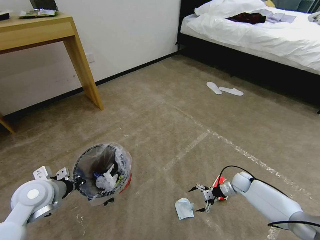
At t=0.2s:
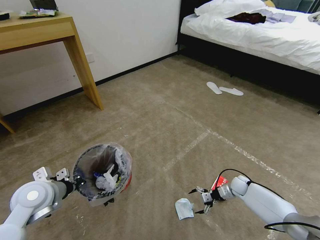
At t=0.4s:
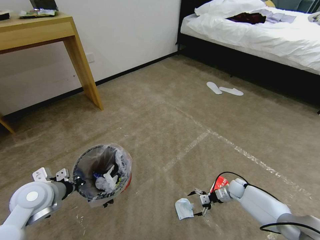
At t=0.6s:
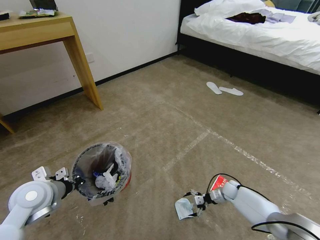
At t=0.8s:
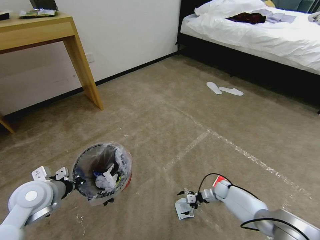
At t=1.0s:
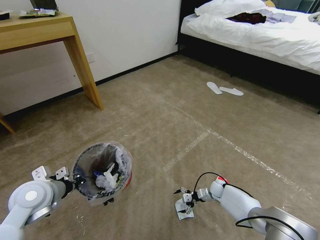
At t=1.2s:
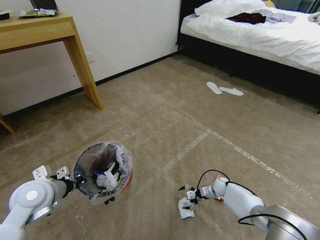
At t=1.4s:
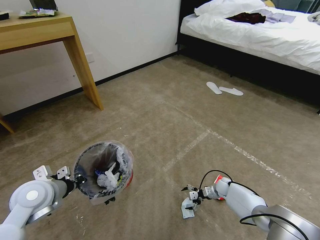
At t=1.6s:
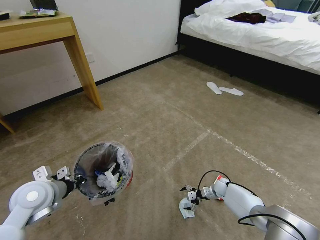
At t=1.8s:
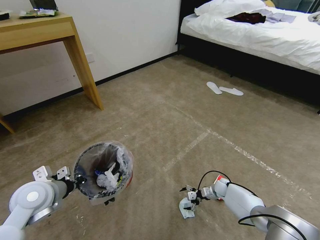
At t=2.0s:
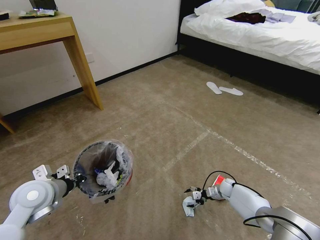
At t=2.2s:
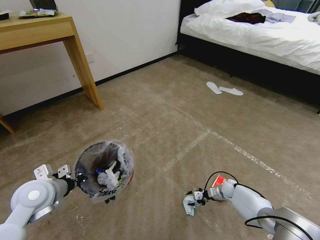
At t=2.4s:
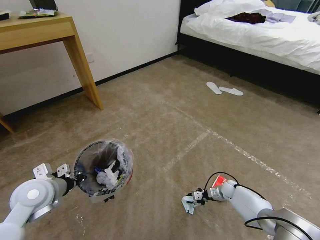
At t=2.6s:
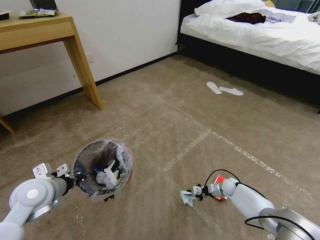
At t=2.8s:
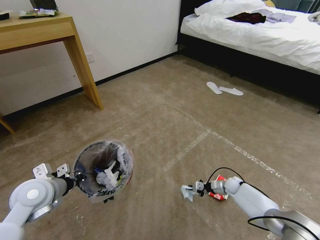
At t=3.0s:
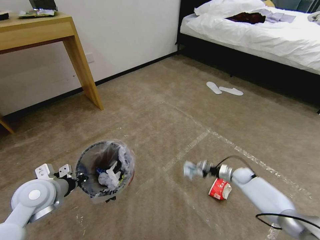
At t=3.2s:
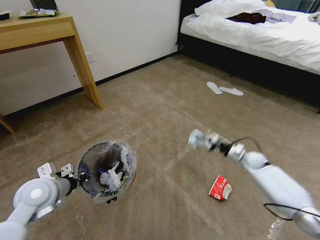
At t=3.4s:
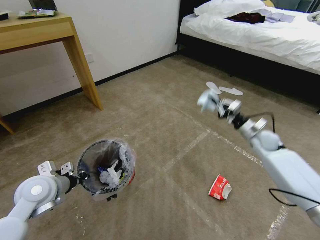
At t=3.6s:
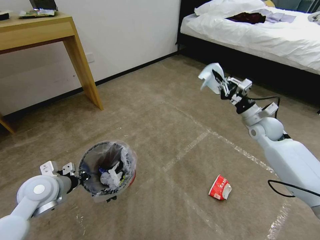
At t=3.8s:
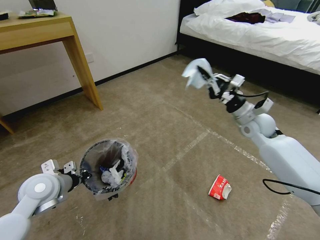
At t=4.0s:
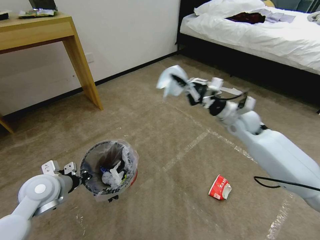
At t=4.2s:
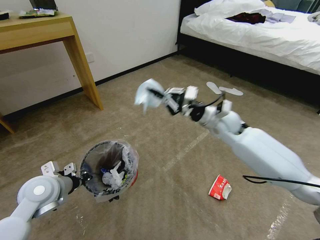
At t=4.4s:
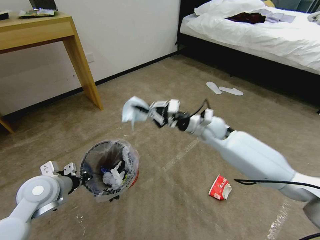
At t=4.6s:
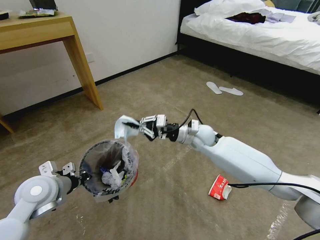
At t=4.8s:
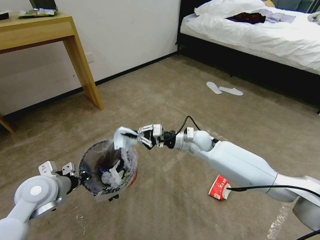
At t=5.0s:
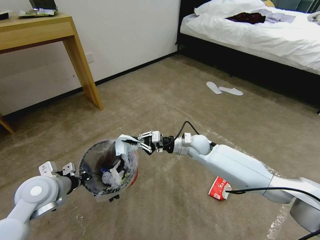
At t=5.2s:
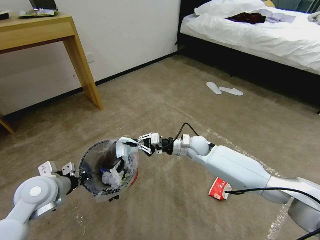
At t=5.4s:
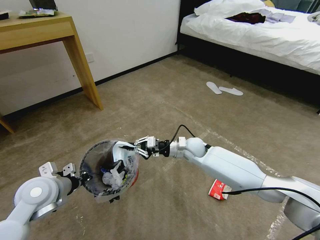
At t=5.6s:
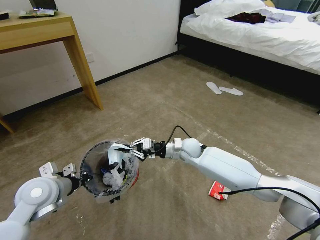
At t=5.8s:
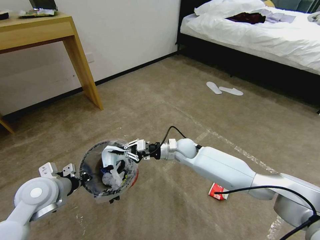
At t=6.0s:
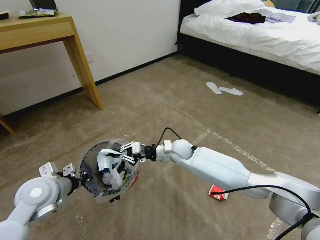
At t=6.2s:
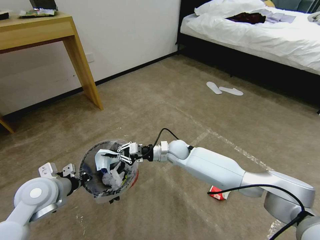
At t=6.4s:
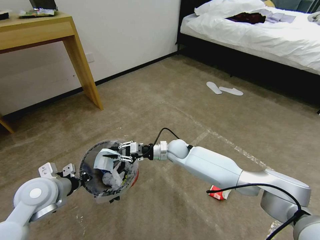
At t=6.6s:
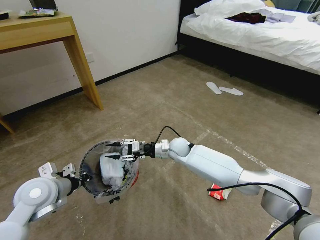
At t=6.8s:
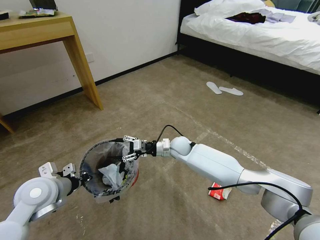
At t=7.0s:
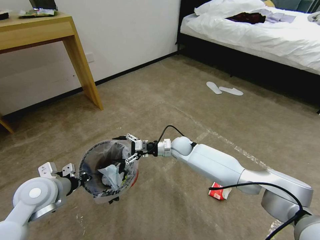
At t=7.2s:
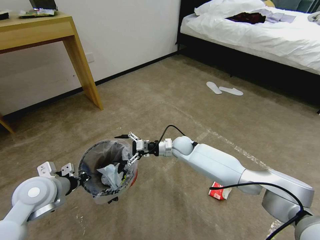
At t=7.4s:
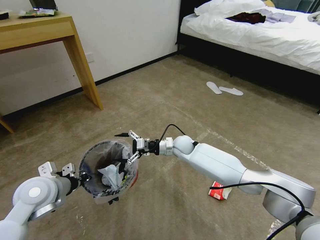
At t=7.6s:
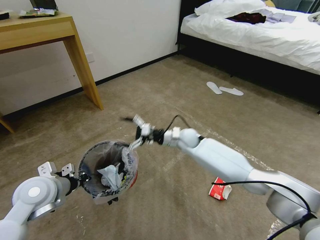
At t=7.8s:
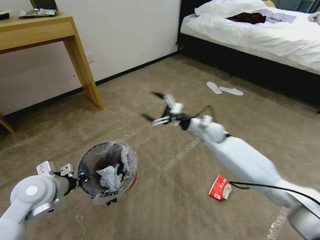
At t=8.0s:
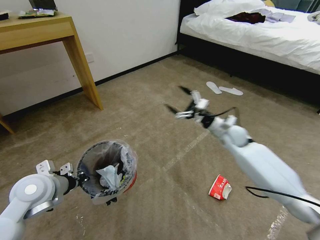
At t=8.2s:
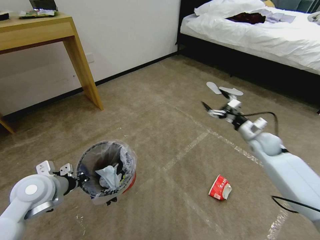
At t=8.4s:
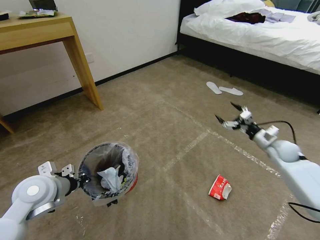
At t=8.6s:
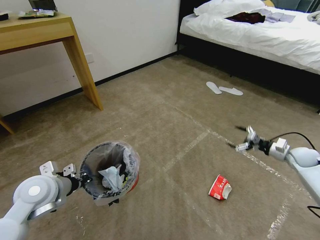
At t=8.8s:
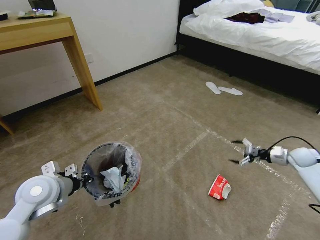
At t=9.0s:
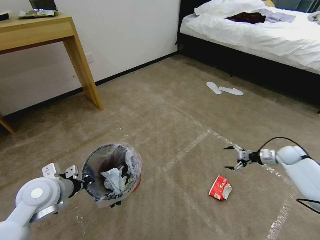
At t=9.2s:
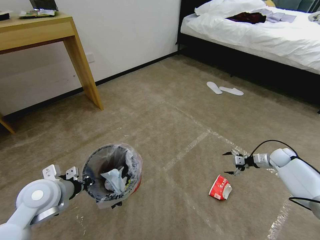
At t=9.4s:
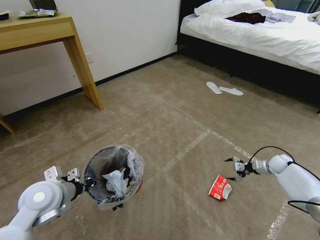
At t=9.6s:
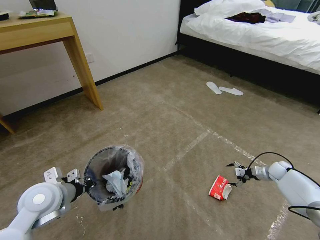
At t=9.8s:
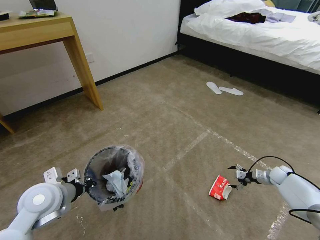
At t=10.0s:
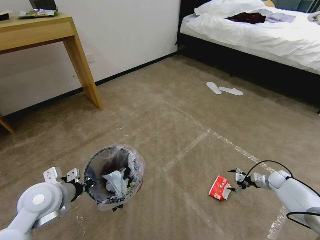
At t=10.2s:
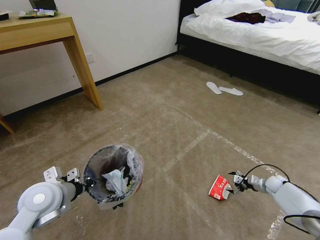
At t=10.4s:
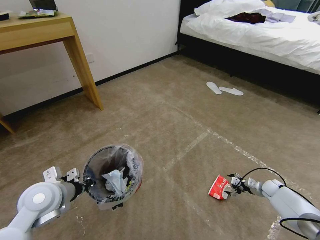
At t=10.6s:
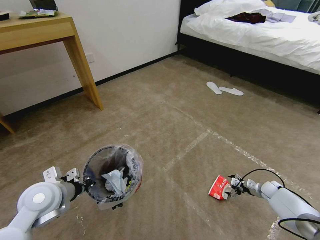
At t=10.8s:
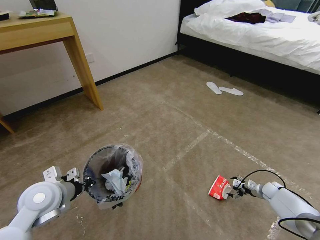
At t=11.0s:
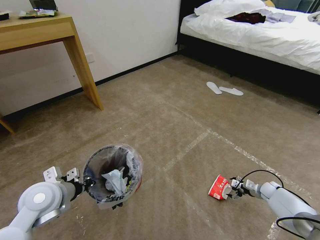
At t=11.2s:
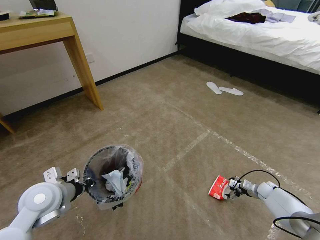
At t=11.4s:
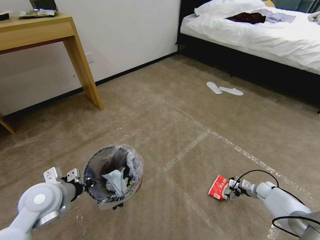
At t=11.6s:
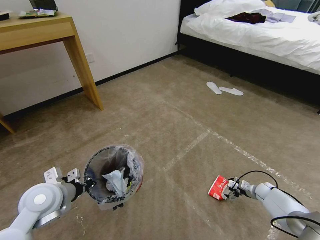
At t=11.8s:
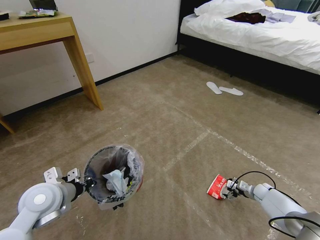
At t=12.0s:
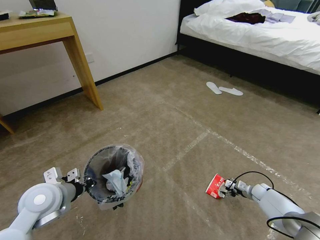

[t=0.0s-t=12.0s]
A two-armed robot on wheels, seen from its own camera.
Task of the whole recording: Pick up the trash bin and place the garbage on the floor into it.
t=0.0s to t=1.6s: The right gripper is displaced downward and to the left by approximately 10 cm.
t=1.6s to t=3.0s: The right gripper is displaced upward and to the right by approximately 10 cm, and closes.
t=3.0s to t=4.4s: The right gripper is displaced upward and to the left by some 35 cm.
t=4.4s to t=6.0s: The right gripper heads downward and to the left, covering some 15 cm.
t=6.0s to t=7.6s: The right gripper changes place by roughly 5 cm, and opens up.
t=7.6s to t=9.0s: The right gripper shifts roughly 40 cm to the right.
t=9.0s to t=10.4s: The right gripper goes roughly 20 cm downward and backward.
t=10.4s to t=12.0s: There are only small adjustments of the grippers.

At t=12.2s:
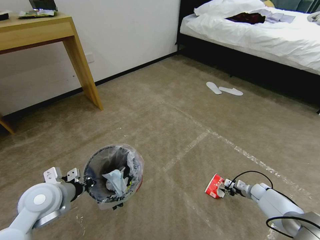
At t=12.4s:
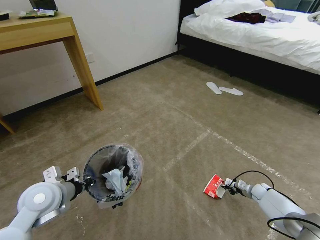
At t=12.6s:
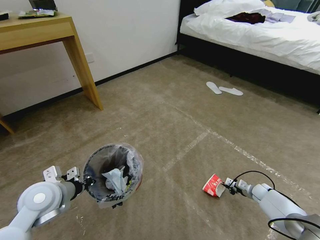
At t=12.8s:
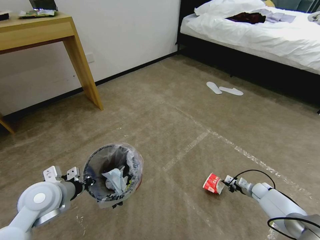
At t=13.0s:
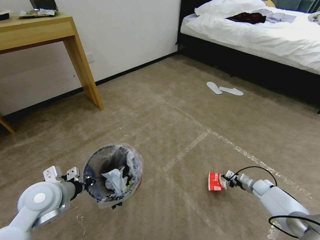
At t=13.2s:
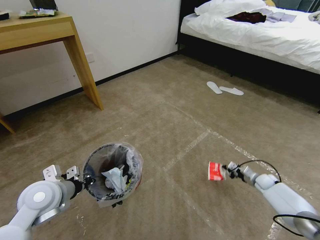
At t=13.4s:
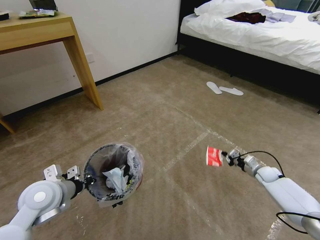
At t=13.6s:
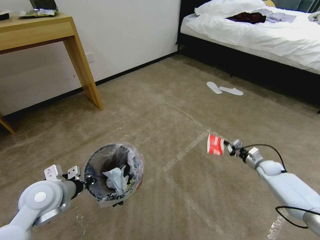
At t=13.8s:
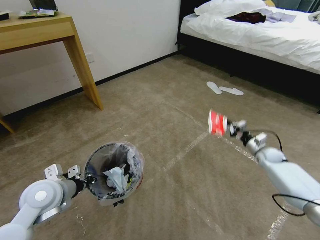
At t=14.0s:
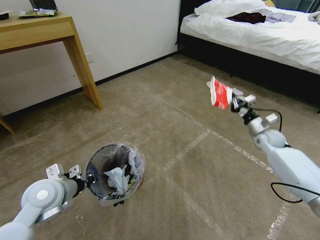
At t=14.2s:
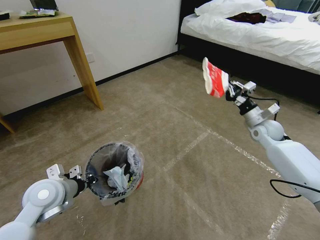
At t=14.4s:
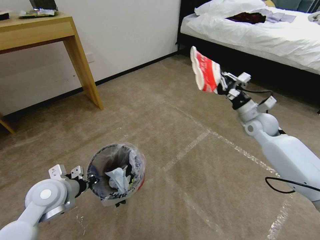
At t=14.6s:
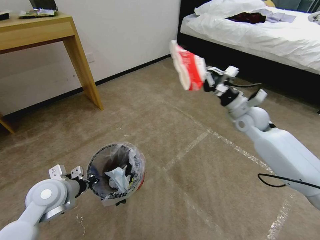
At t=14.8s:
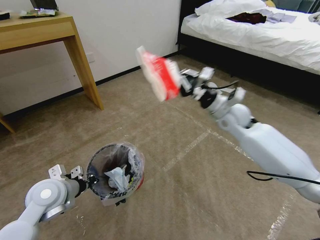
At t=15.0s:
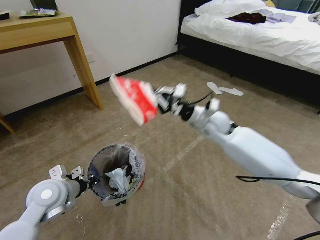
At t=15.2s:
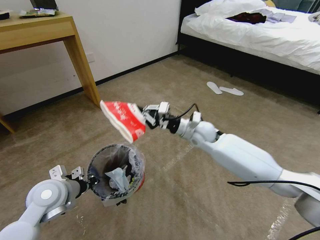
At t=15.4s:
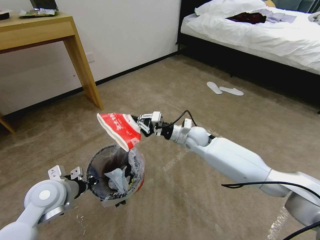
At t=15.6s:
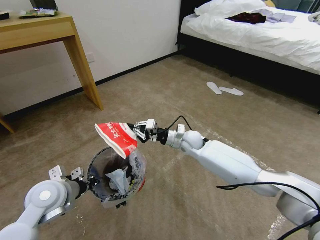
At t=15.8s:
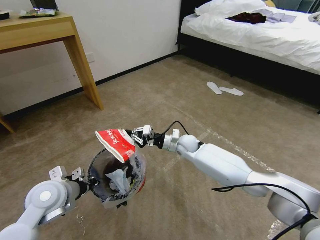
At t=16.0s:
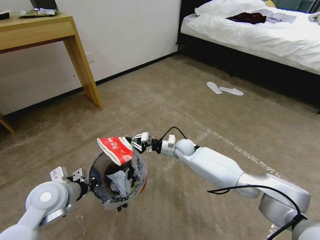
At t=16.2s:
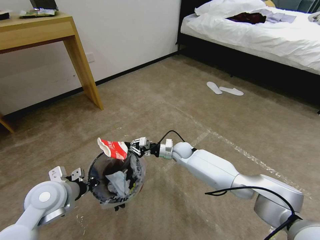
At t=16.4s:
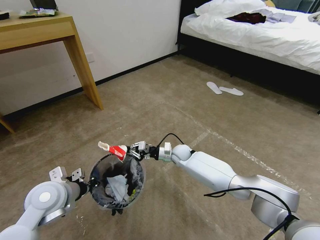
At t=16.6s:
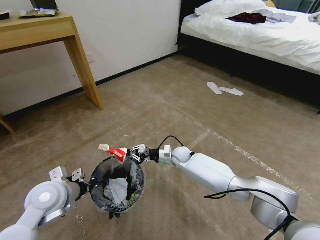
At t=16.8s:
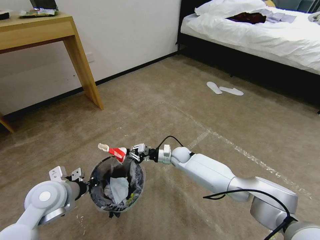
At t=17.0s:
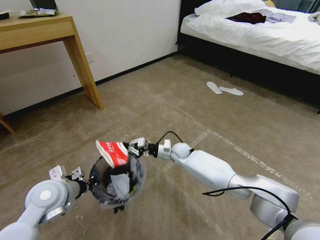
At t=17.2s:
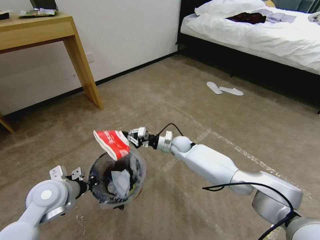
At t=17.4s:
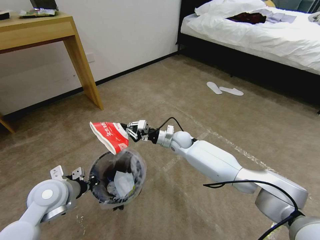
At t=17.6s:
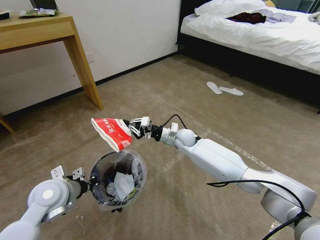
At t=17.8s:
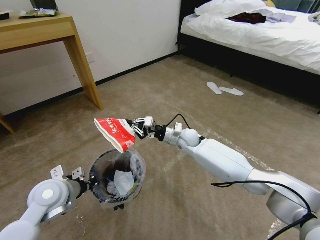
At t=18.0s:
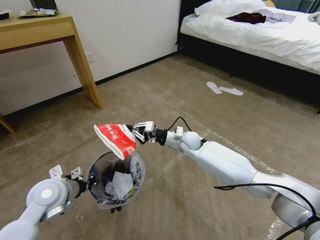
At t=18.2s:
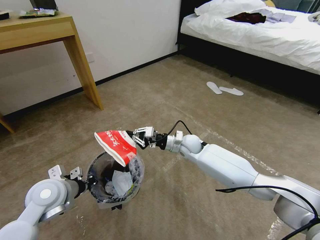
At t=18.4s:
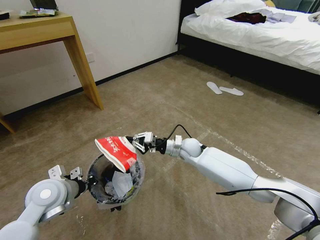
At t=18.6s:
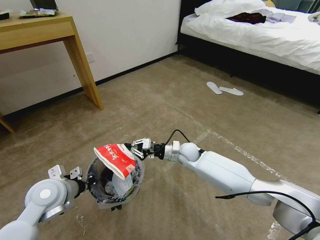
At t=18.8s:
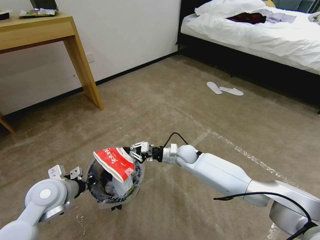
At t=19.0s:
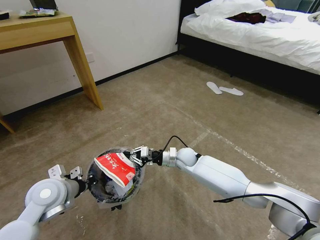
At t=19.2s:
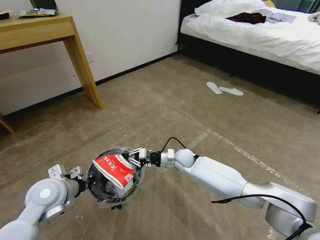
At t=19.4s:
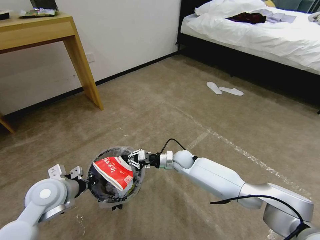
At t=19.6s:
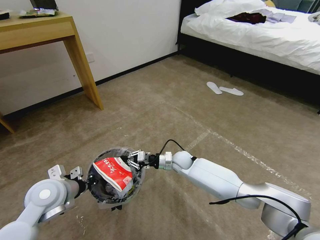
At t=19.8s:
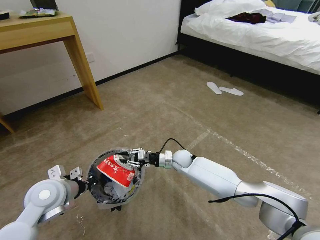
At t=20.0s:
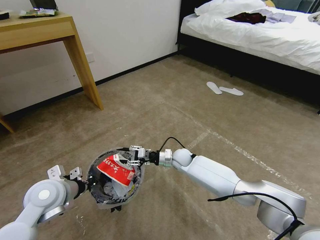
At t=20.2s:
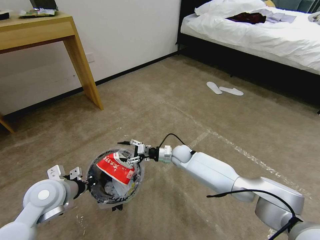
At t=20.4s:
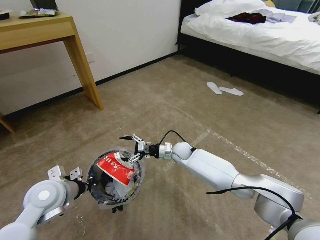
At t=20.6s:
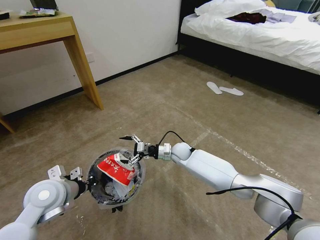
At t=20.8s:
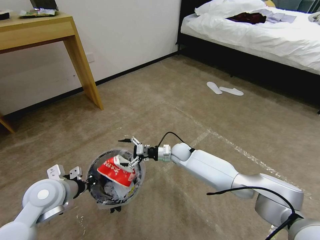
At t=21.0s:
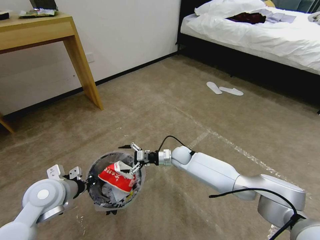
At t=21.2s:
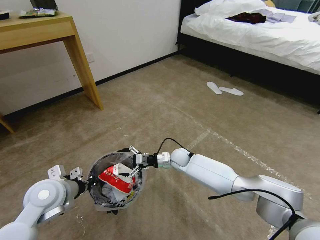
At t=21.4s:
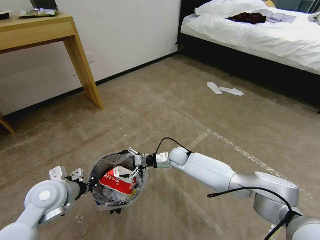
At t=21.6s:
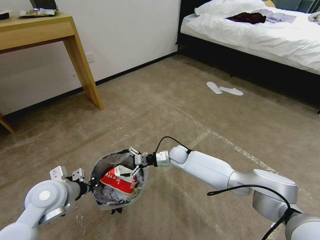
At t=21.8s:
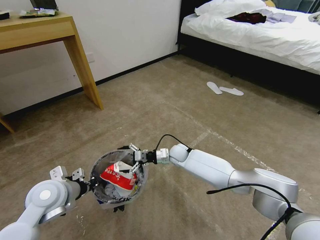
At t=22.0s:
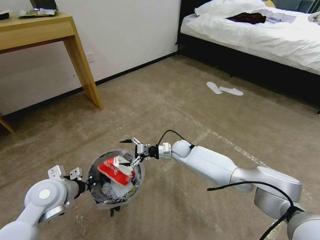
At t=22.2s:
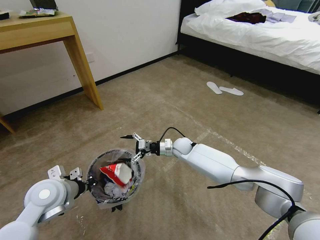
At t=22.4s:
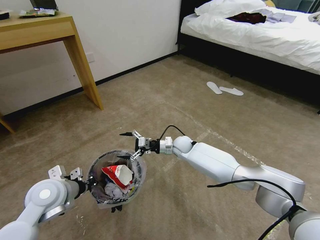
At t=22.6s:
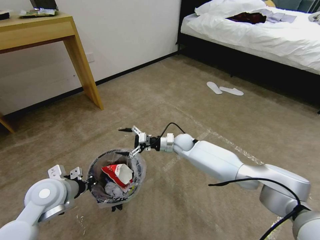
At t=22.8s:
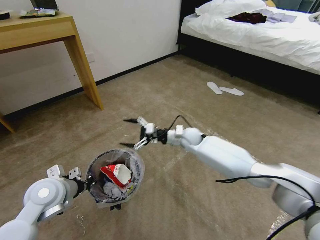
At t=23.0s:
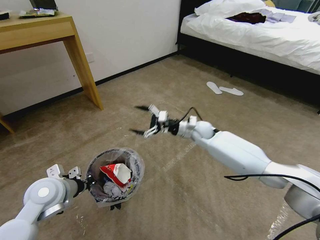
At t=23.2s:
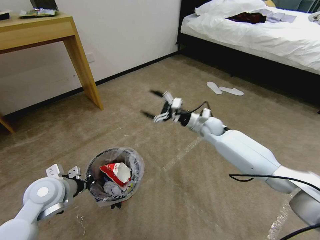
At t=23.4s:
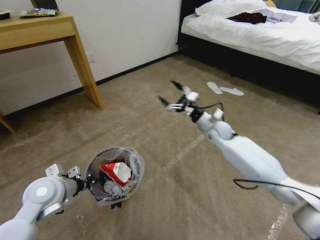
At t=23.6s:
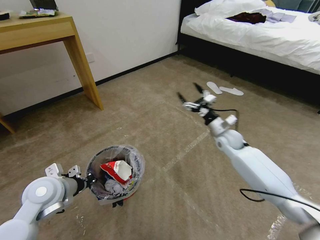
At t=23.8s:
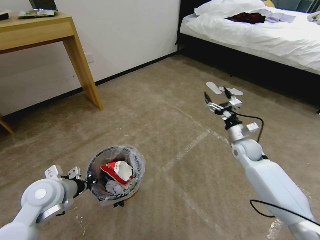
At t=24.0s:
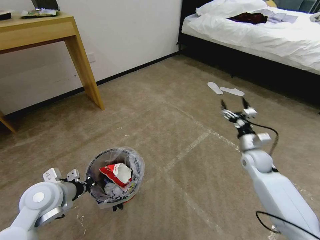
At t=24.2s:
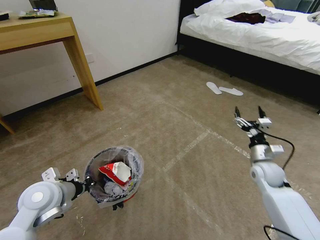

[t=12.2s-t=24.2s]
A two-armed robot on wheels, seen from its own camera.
Task of the whole recording: Pick up the trash bin and place the garbage on the floor into it.
t=12.2s to t=13.8s: The right gripper moves upward and forward, about 20 cm, and closes.
t=13.8s to t=15.2s: The right gripper heads to the left and upward, covering some 35 cm.
t=15.2s to t=16.6s: The right gripper goes roughly 15 cm downward.
t=16.6s to t=18.2s: The right gripper shifts some 10 cm upward.
t=18.2s to t=19.8s: The right gripper is displaced downward by roughly 10 cm.
t=19.8s to t=21.2s: The right gripper opens.
t=21.2s to t=22.6s: The right gripper moves upward, about 5 cm.
t=22.6s to t=24.2s: The right gripper heads to the right and backward, covering roughly 30 cm.
